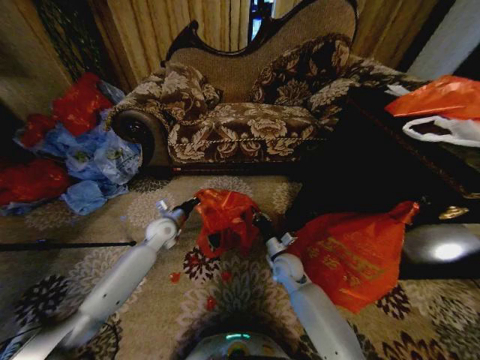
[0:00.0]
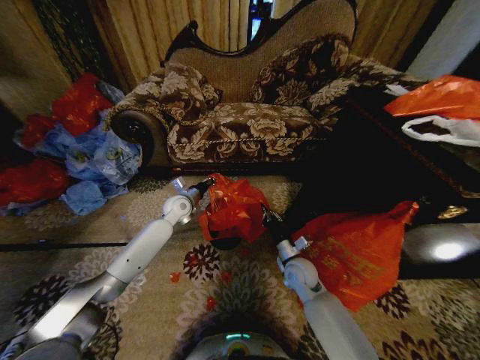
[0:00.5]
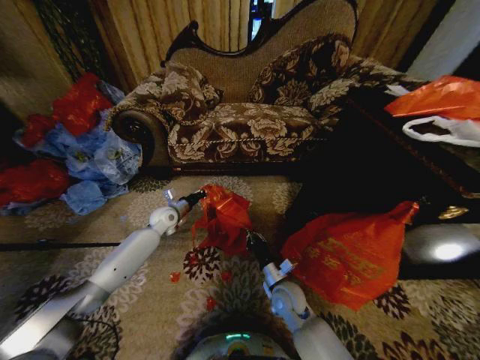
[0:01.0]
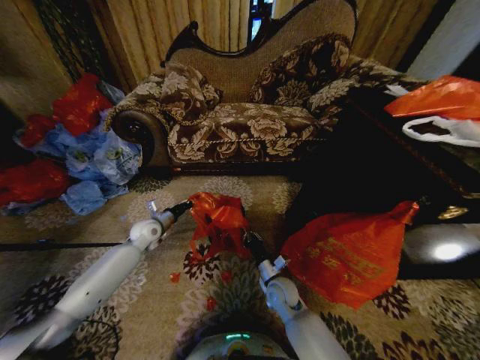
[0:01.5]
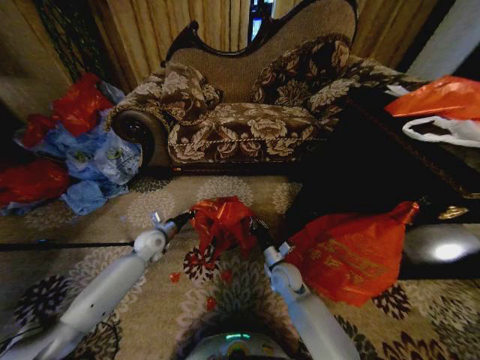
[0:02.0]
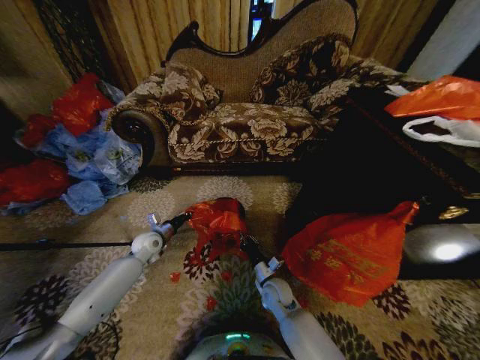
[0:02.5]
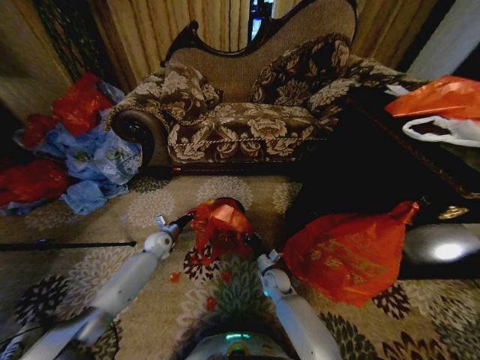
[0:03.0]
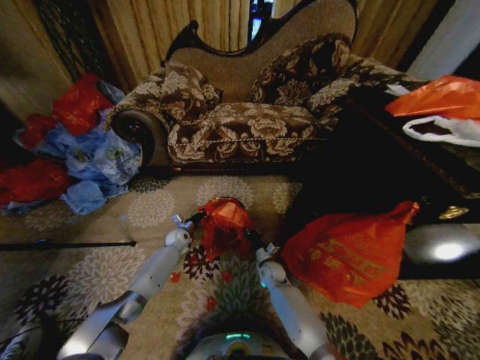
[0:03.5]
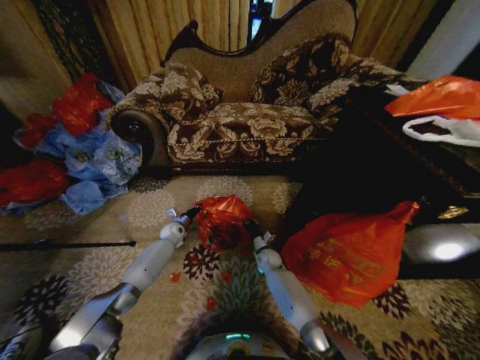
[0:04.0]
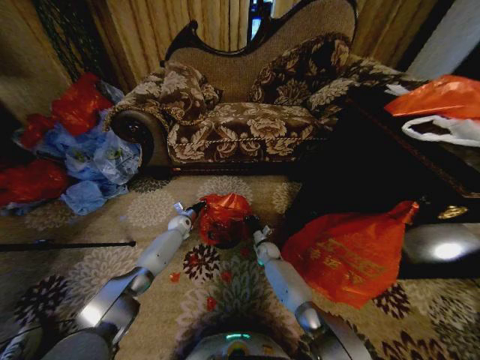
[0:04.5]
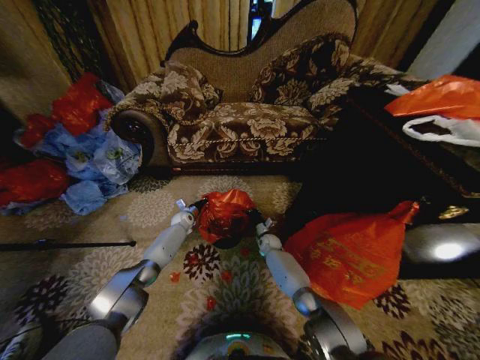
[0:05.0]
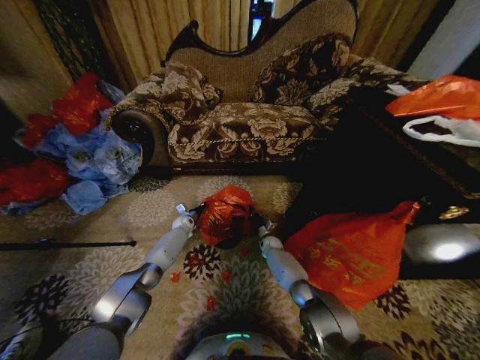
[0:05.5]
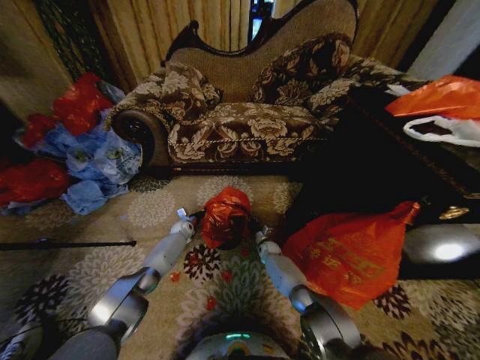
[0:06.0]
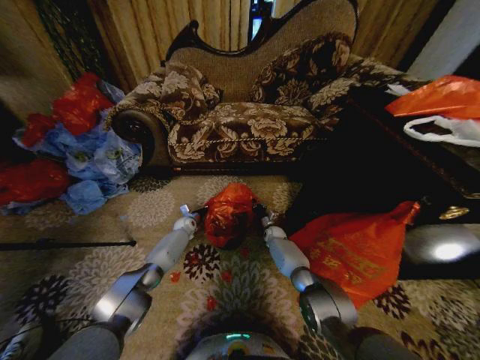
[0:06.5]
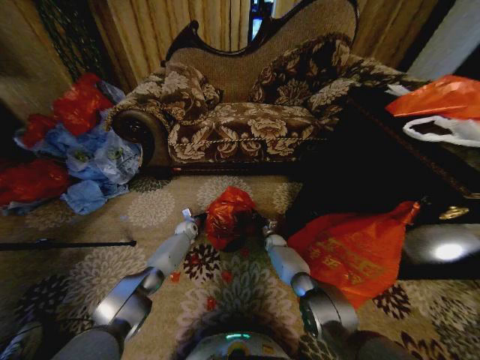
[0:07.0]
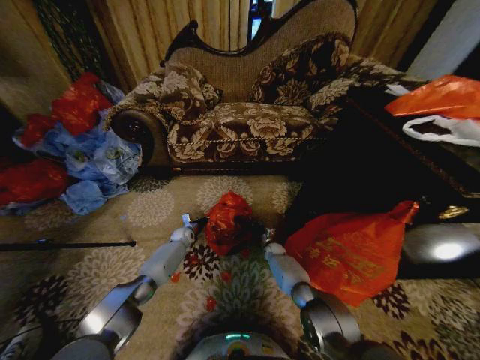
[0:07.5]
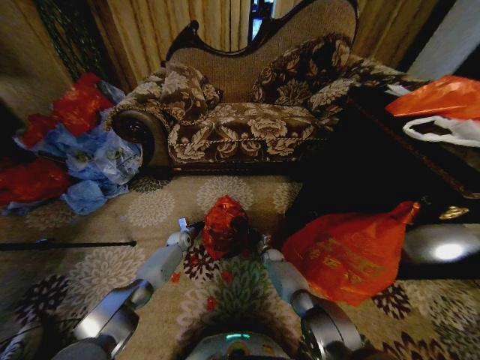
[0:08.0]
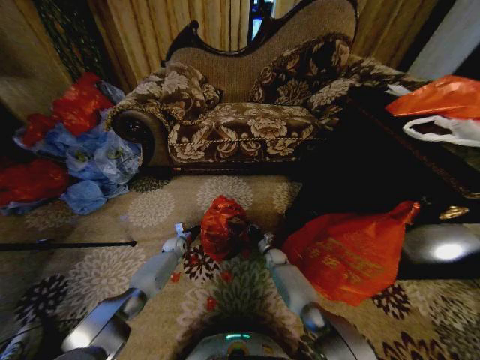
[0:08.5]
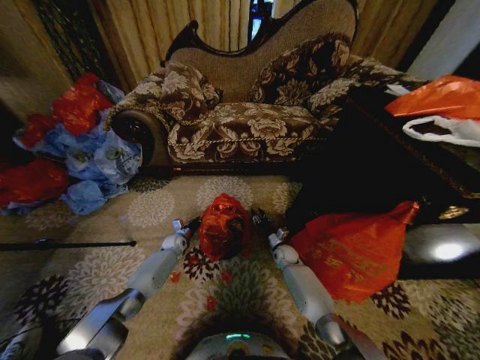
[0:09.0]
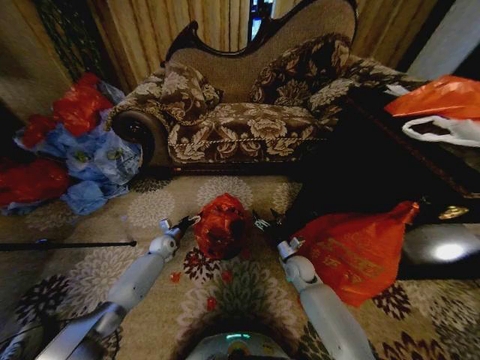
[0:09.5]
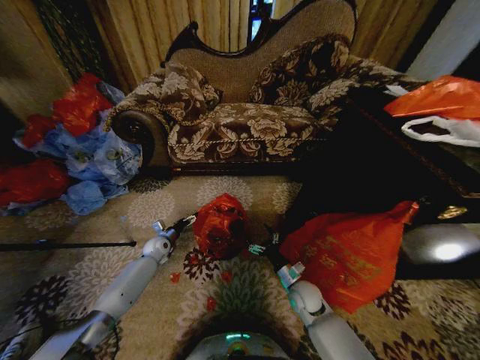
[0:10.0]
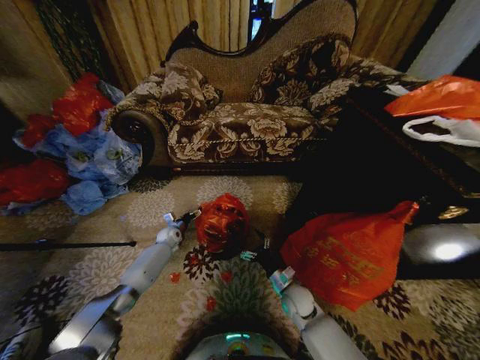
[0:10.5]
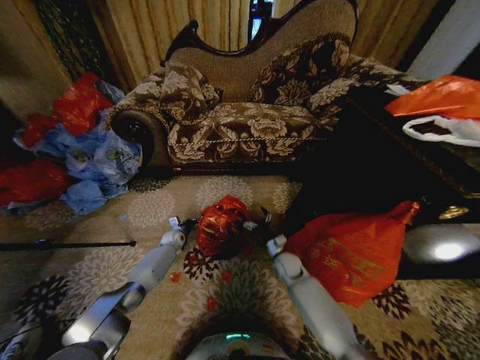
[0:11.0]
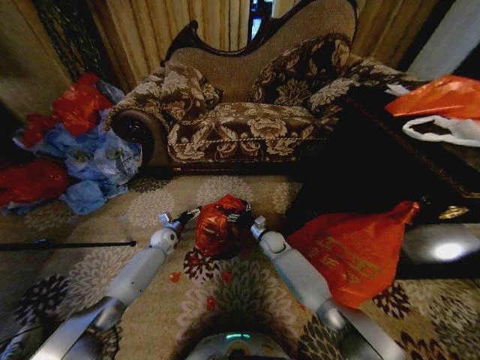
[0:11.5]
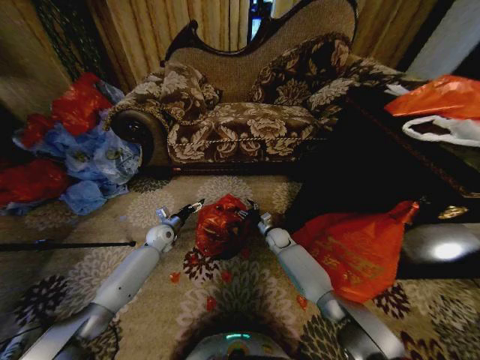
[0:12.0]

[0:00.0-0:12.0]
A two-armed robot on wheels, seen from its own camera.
Task of the whole recording: Place a garbage bag over the trash bin.
0:00.0 to 0:02.0: The left gripper ends up about 5 cm from where it was, while the right gripper travels backward and back again, approximately 10 cm each way.
0:02.0 to 0:04.0: The grippers both shift forward and downward by about 15 cm.
0:04.0 to 0:06.0: The right gripper heads forward, covering approximately 5 cm, while the left gripper changes place by approximately 5 cm.
0:08.0 to 0:10.0: The left gripper shifts about 10 cm backward, to the left and upward, and opens up; the right gripper heads backward and upward, covering some 25 cm, and opens its fingers.
0:10.0 to 0:12.0: The left gripper shifts about 5 cm upward, while the right gripper travels forward by some 20 cm.

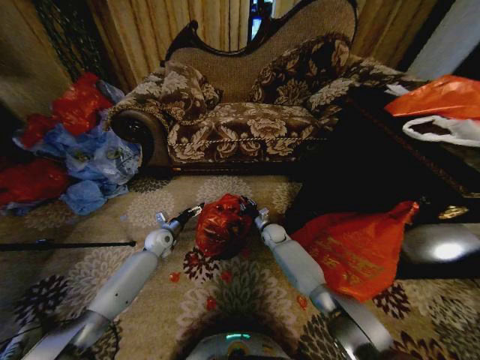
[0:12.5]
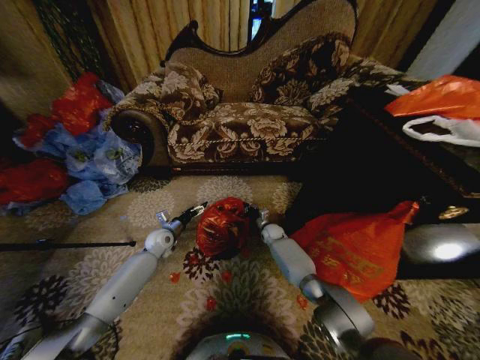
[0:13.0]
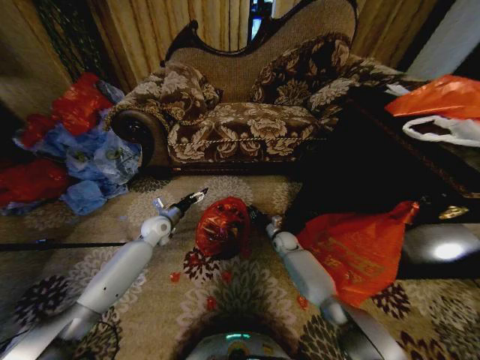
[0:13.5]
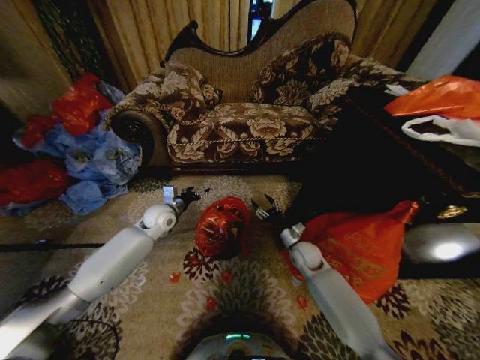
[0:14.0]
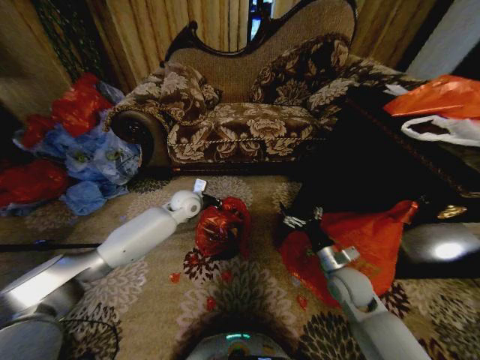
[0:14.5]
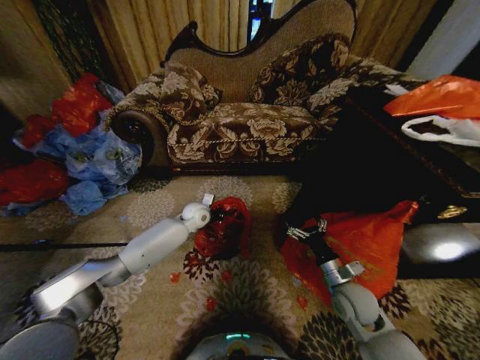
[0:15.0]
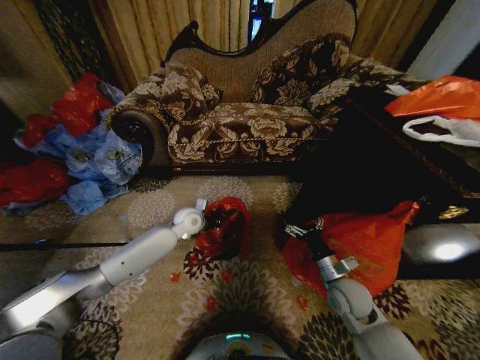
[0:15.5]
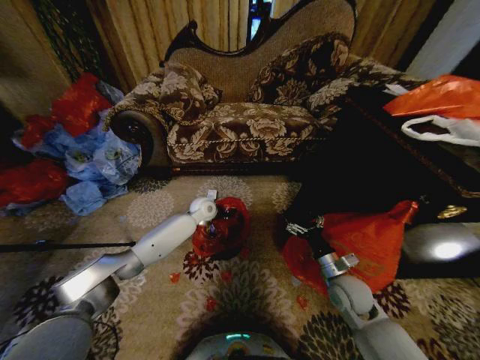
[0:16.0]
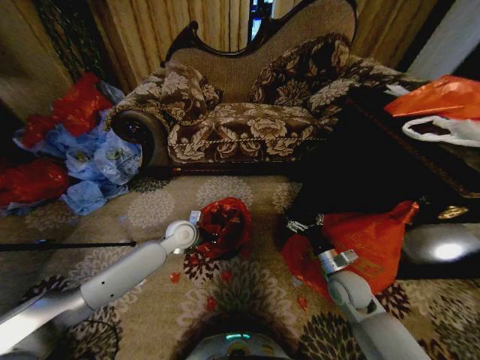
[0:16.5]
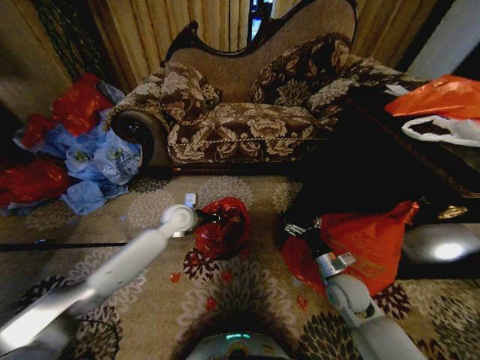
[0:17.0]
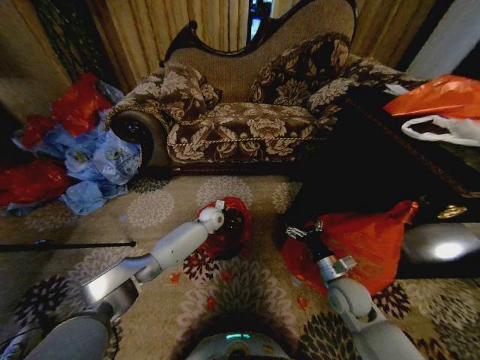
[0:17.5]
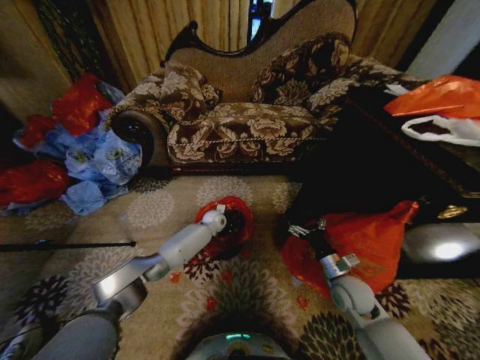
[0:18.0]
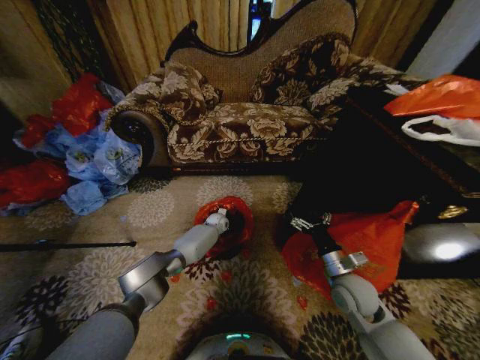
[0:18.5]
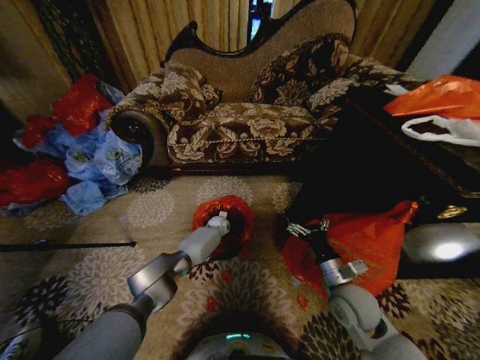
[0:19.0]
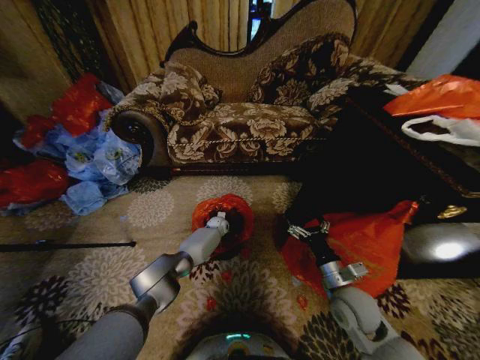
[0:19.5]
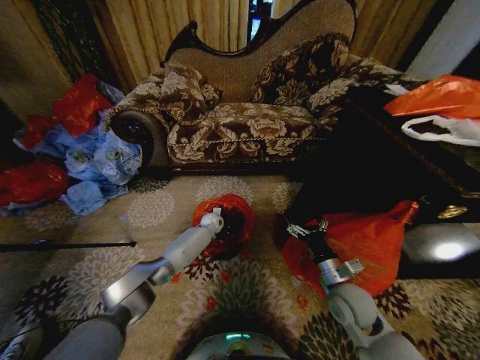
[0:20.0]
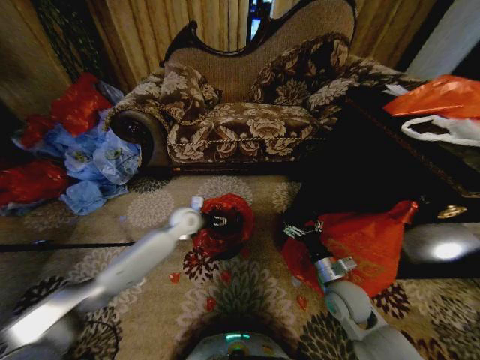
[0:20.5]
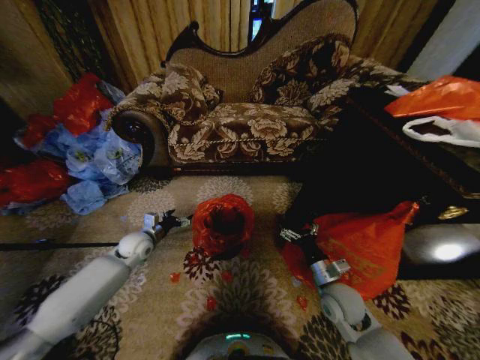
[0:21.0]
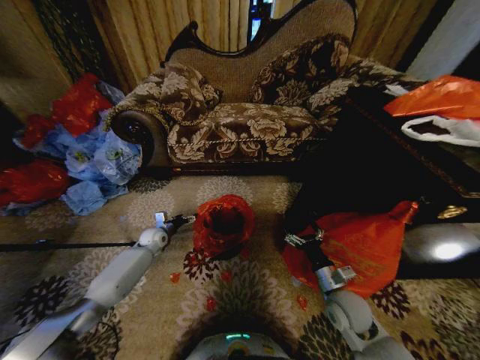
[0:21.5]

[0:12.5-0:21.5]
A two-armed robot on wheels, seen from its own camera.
Task of the whole recording: Place a garbage bag over the trash bin.
0:12.5 to 0:14.5: The right gripper shifts approximately 30 cm backward, to the right and upward, and opens up. The left gripper goes about 20 cm upward and to the right, and closes its fingers.
0:14.5 to 0:17.0: The left gripper closes, then opens again.
0:17.0 to 0:19.5: The left gripper goes roughly 25 cm downward, forward and to the right, and closes its fingers; the right gripper ends up about 5 cm from where it was.
0:19.5 to 0:21.5: The left gripper is displaced to the left and backward by roughly 25 cm, and opens up.

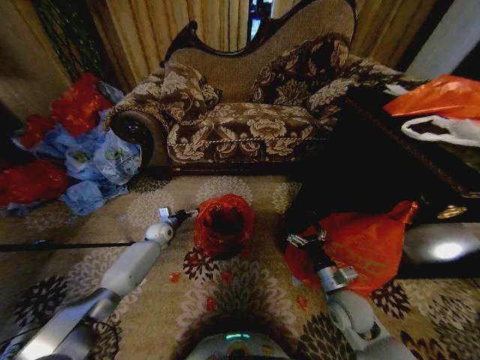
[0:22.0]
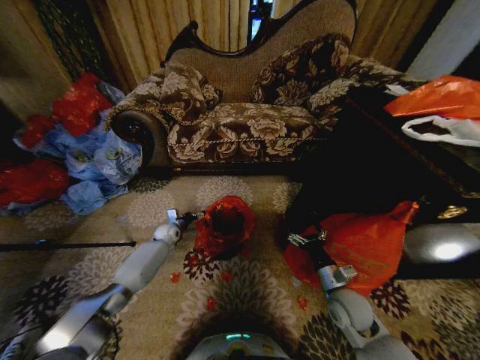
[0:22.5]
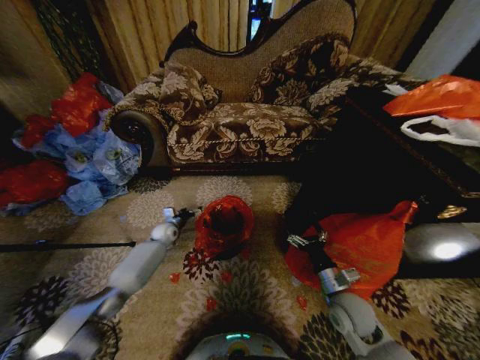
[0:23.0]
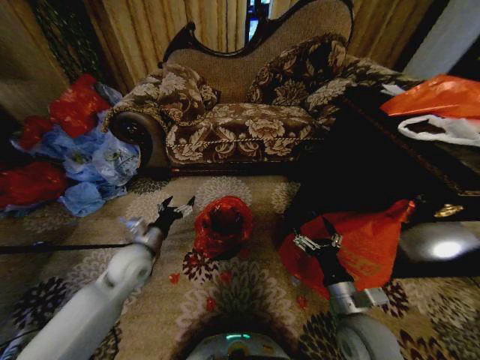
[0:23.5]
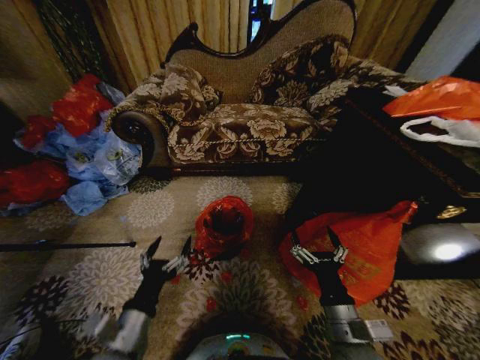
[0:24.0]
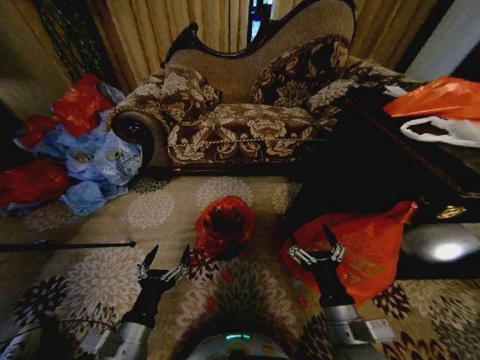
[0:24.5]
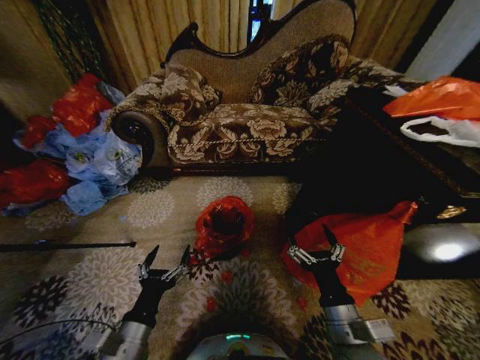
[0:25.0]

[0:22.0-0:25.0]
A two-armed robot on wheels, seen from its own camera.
Task of the whole recording: Place a garbage bag over the trash bin.
0:22.0 to 0:23.5: The left gripper is displaced backward and upward by roughly 25 cm. The right gripper is displaced backward and upward by some 10 cm.
0:23.5 to 0:25.0: The right gripper moves approximately 5 cm. Meanwhile the left gripper is displaced backward by approximately 20 cm.
